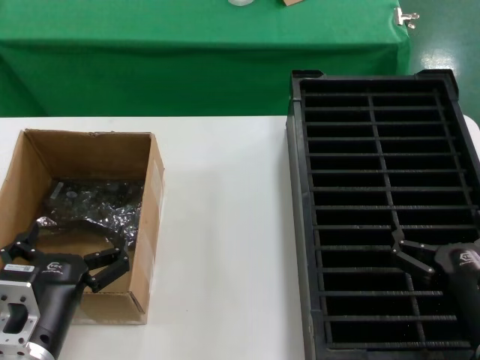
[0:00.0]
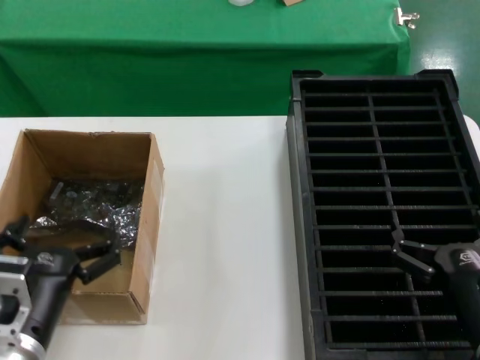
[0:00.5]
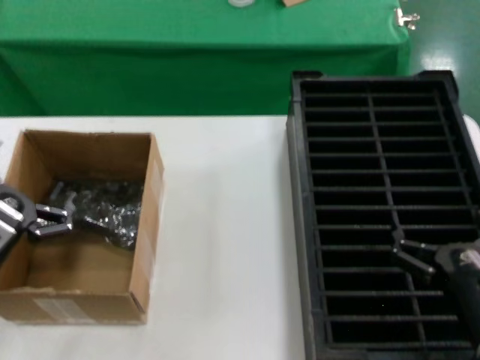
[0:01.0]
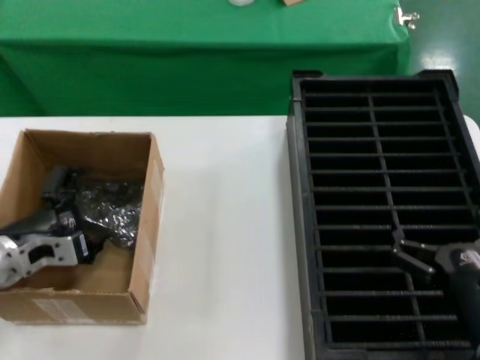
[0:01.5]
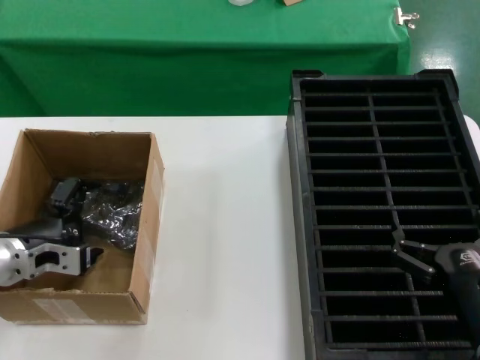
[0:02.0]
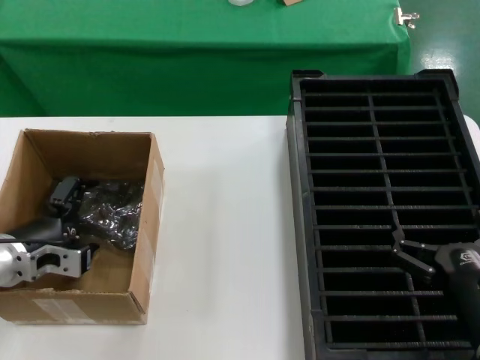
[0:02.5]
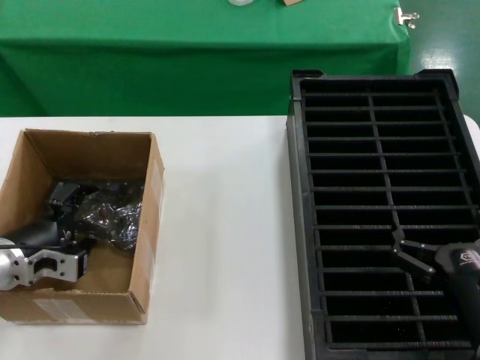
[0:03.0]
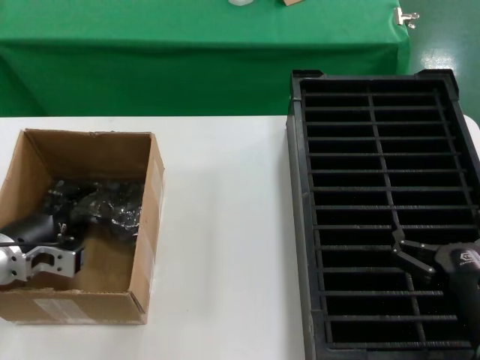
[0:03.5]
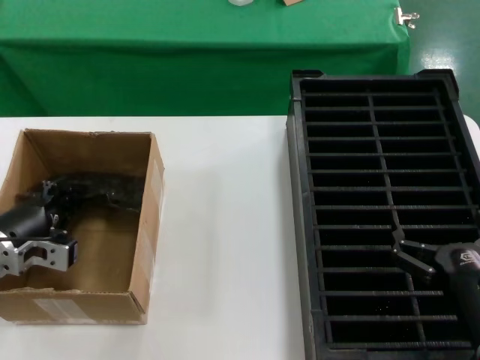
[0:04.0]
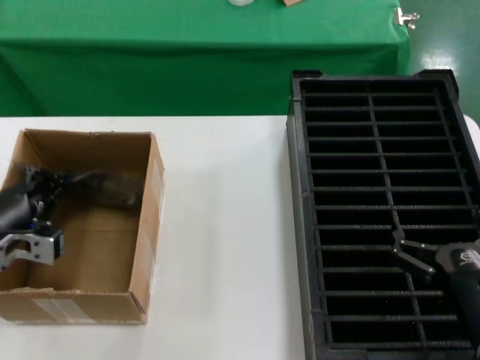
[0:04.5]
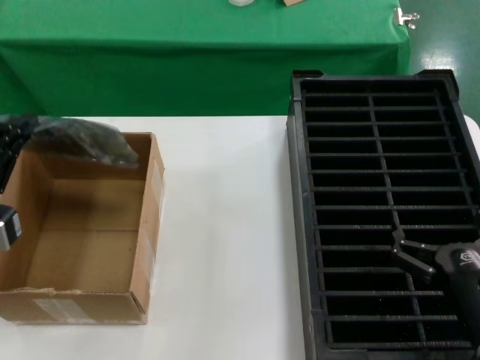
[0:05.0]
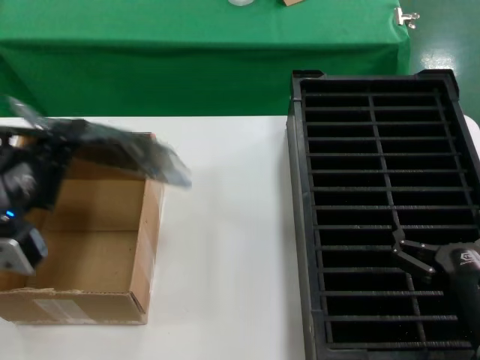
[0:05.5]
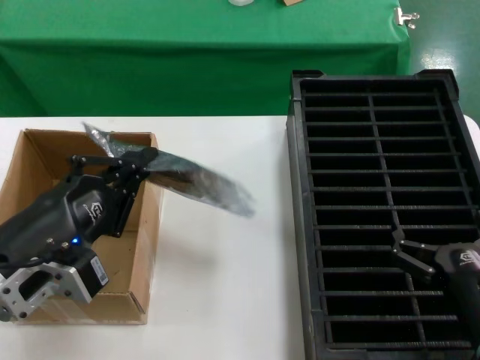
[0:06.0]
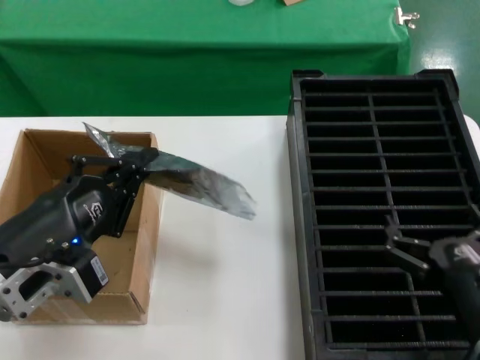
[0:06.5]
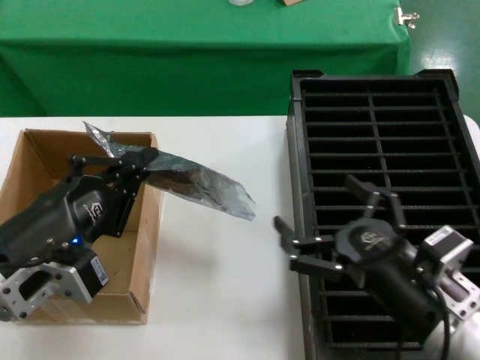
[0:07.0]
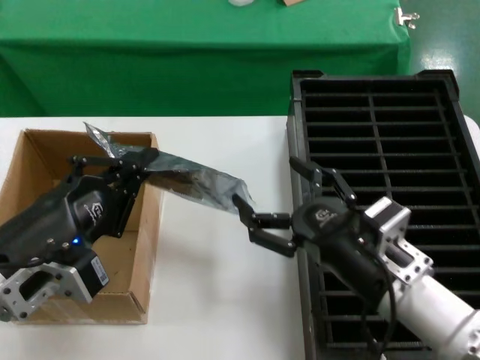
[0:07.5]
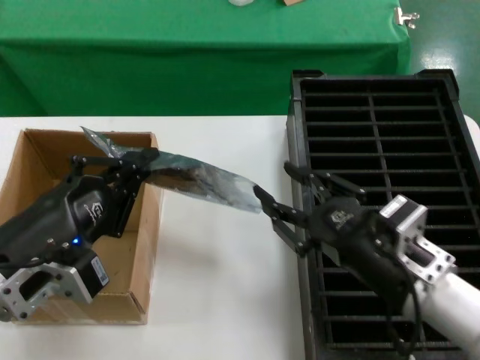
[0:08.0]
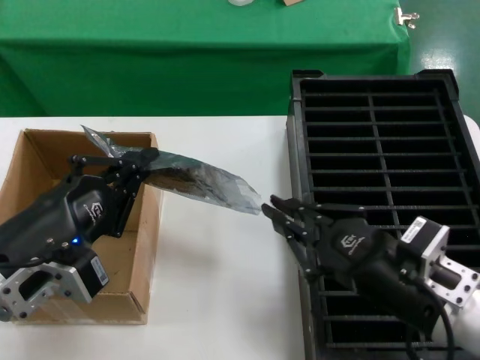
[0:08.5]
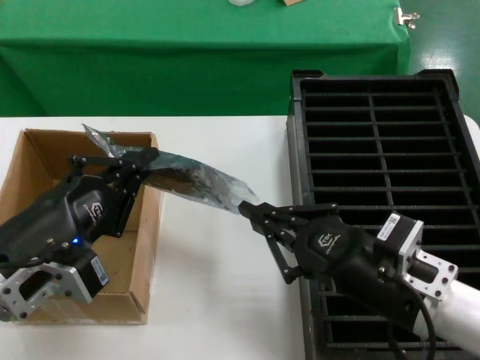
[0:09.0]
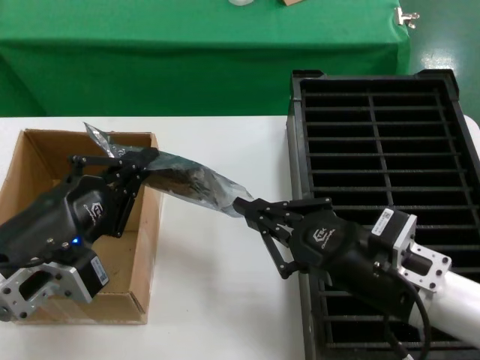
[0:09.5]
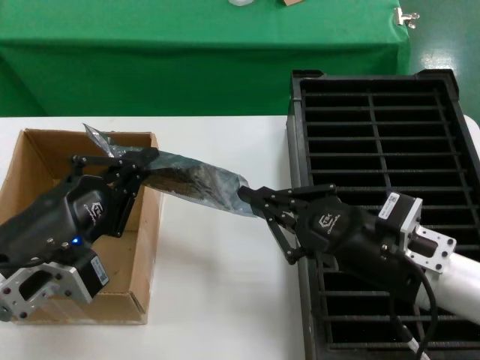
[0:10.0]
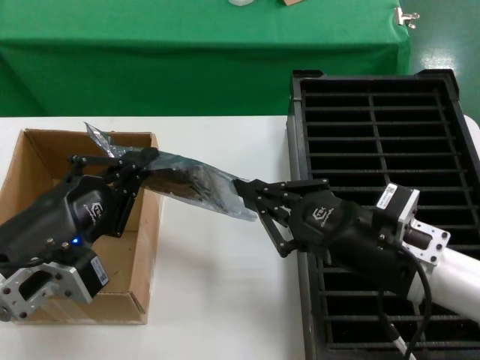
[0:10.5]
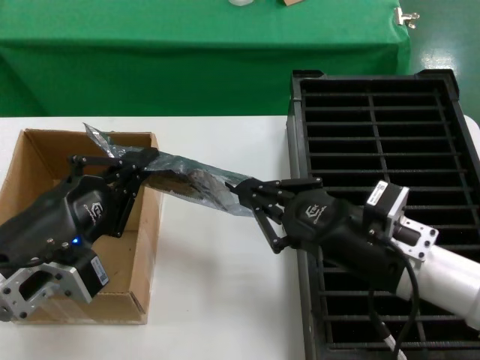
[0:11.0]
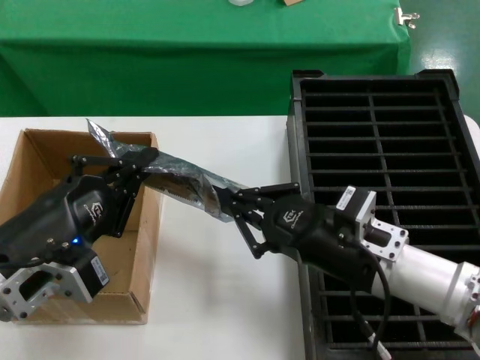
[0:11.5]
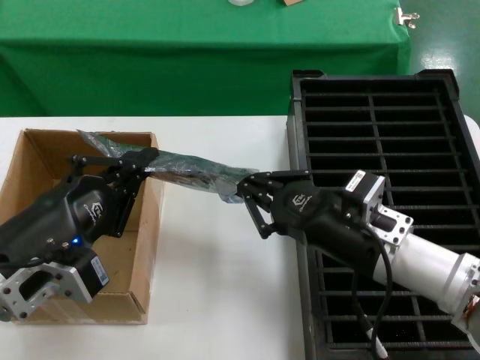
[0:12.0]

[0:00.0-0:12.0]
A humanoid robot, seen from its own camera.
Task of the whole recording: take out graphics card from box remove packaging put into black container.
Step, 0:00.0 to 0:04.0: Grasp the bag.
Step, 0:04.5 to 0:06.0: Lift the bag.
0:00.0 to 0:02.0: The left hand travels forward and to the left by about 20 cm.
0:02.0 to 0:04.0: The hands move only a little.
0:04.0 to 0:06.0: The left hand goes roughly 20 cm backward, to the right and upward.
0:06.0 to 0:08.0: The right hand goes about 10 cm upward and to the left.
0:08.0 to 0:10.0: The hands make only small movements.
0:10.0 to 0:12.0: The right hand moves roughly 5 cm.

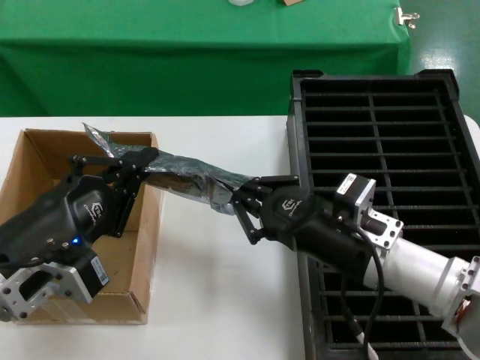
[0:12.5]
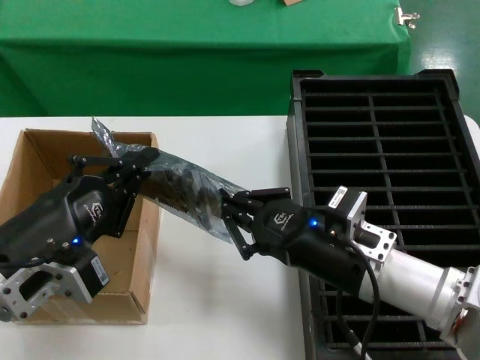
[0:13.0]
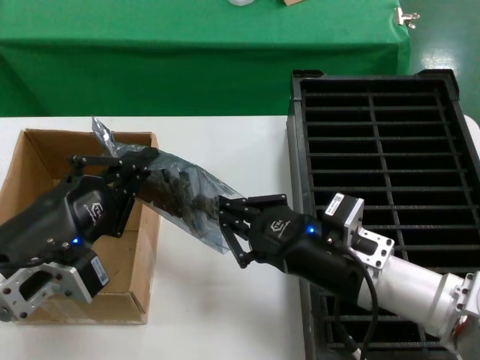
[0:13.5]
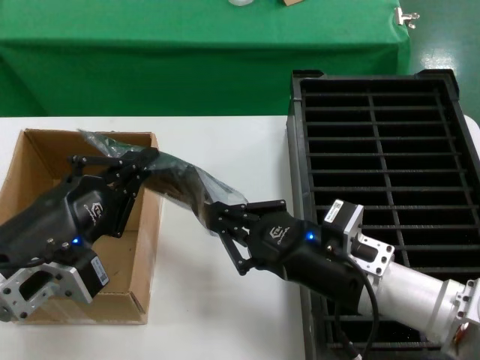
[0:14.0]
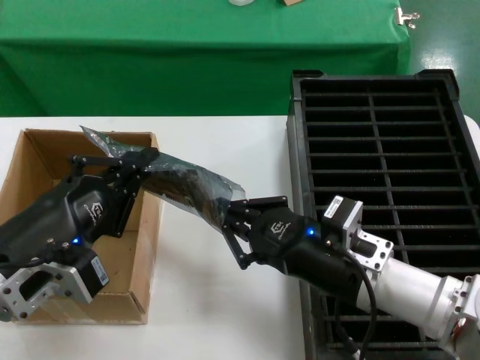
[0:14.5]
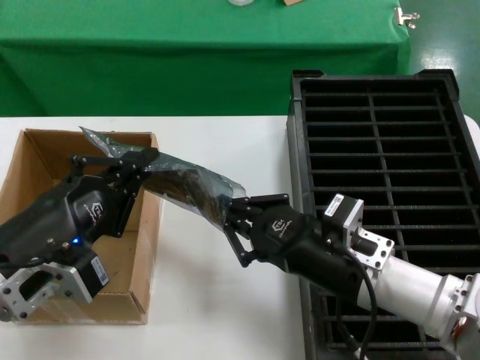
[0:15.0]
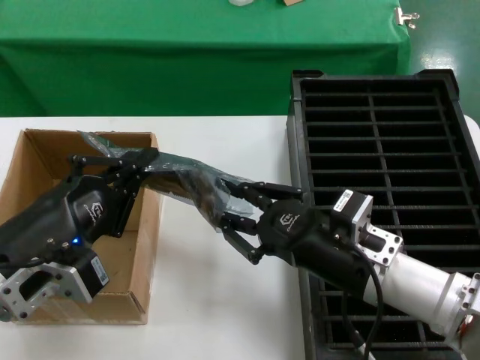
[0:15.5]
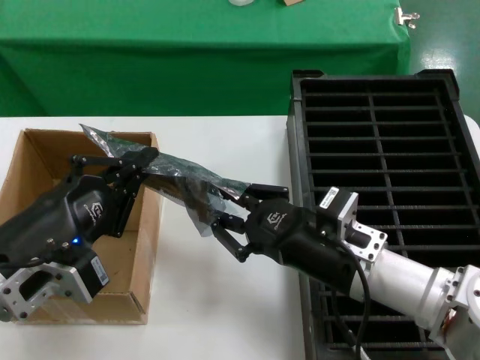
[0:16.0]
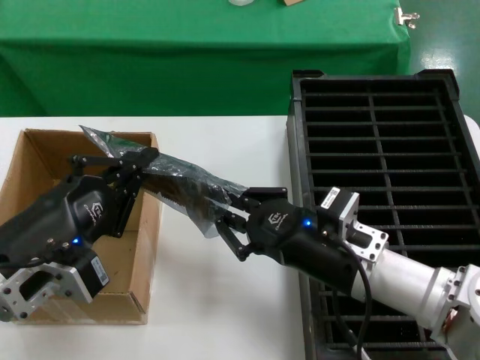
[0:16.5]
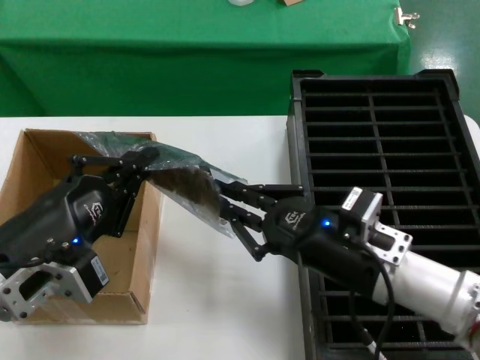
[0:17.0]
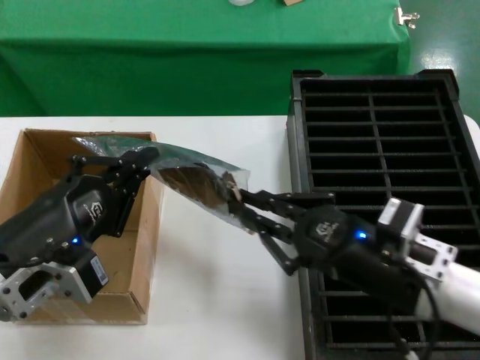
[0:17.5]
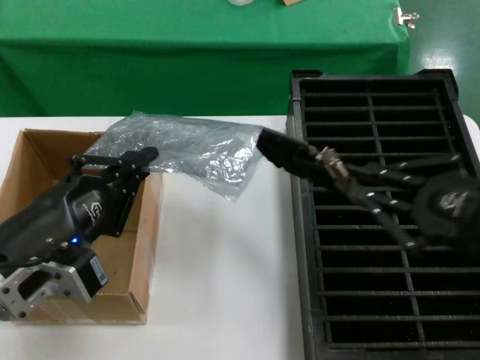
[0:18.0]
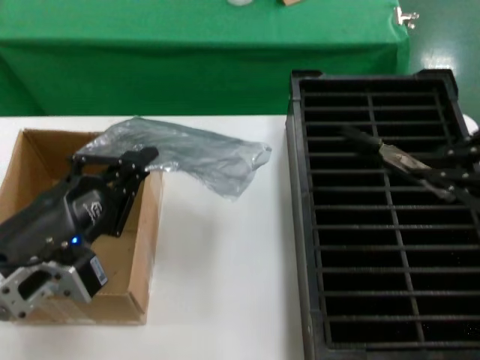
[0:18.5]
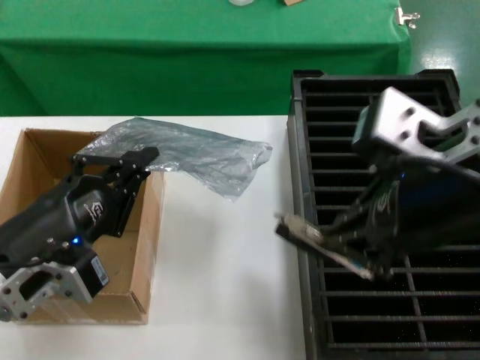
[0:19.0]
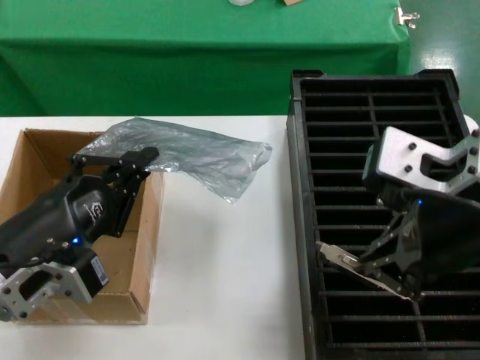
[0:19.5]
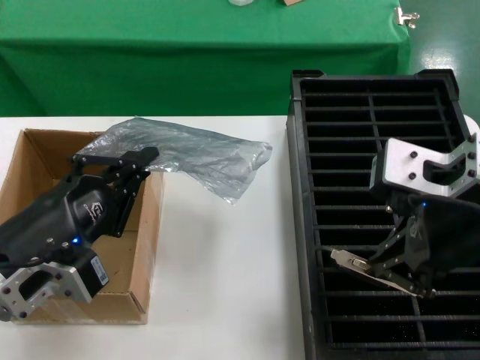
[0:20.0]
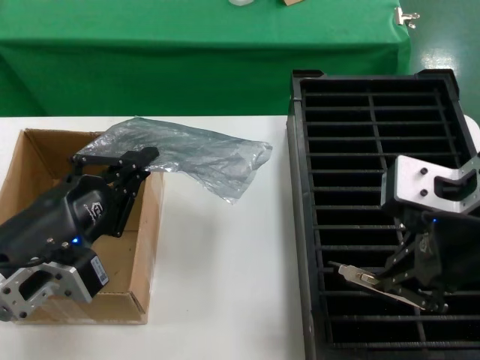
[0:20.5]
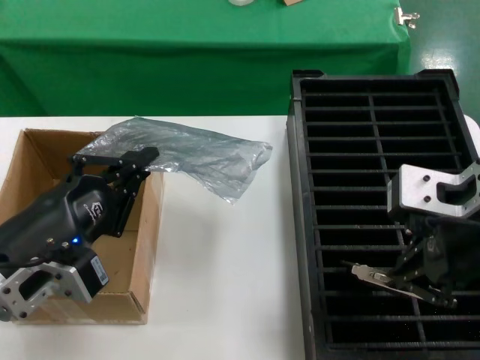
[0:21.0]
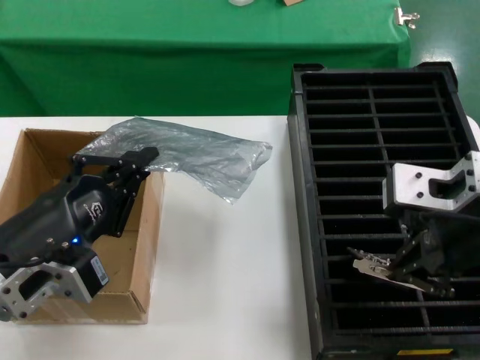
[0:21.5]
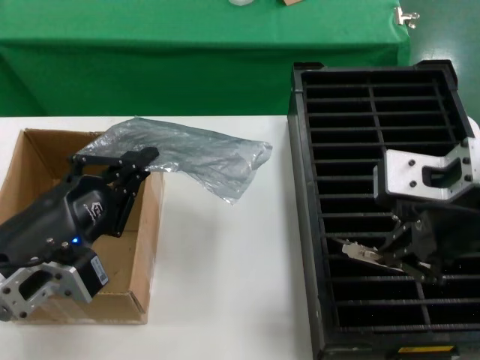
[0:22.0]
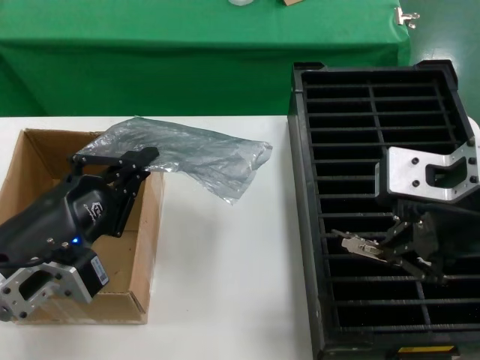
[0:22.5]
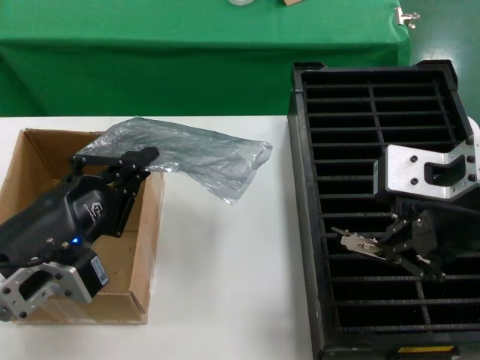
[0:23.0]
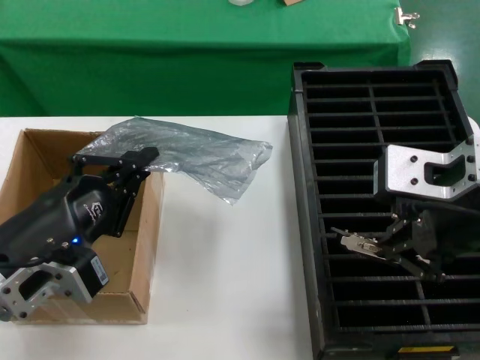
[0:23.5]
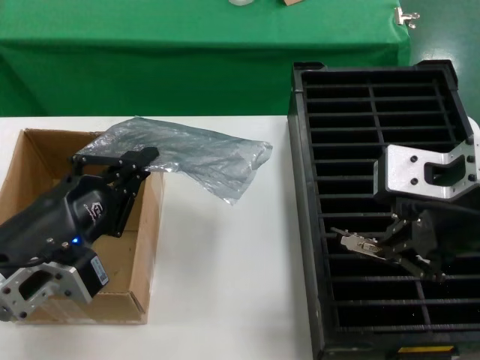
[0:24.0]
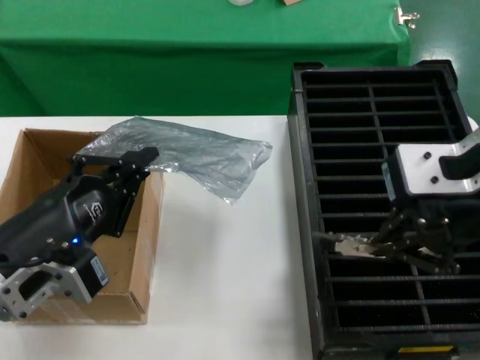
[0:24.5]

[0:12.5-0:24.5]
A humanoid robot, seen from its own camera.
Task of the whole recording: take out graphics card from box remove packaging put into black container.
Step, 0:12.5 to 0:18.0: Take out the hard disk of the bag.
0:12.5 to 0:16.5: There are only small adjustments of the hands.
0:16.5 to 0:18.5: The right hand is displaced upward, to the right and backward by approximately 30 cm.
0:18.5 to 0:20.5: The right hand heads to the left, covering roughly 10 cm.
0:20.5 to 0:24.5: The hands move only a little.

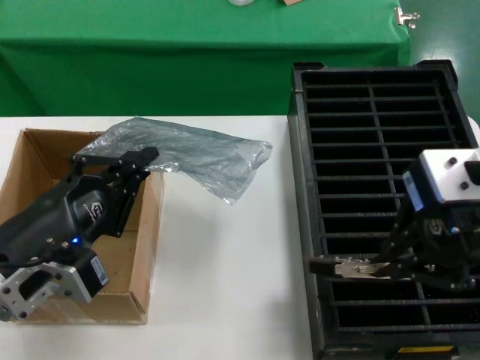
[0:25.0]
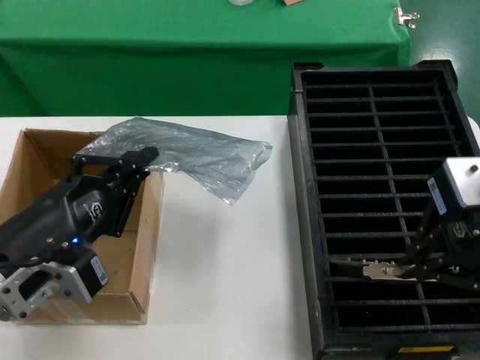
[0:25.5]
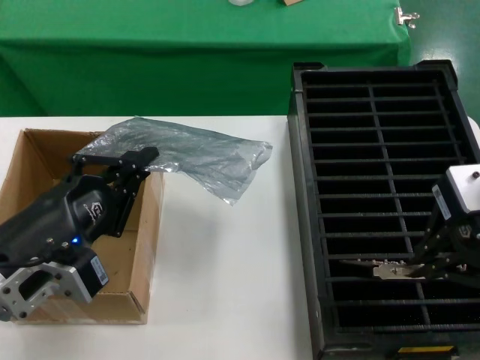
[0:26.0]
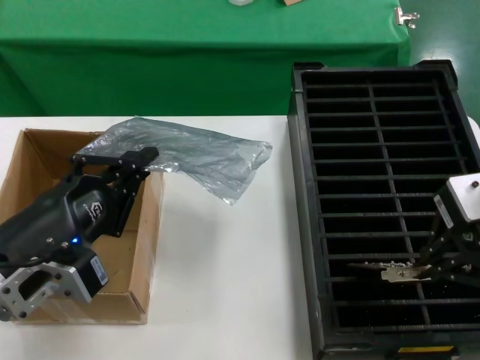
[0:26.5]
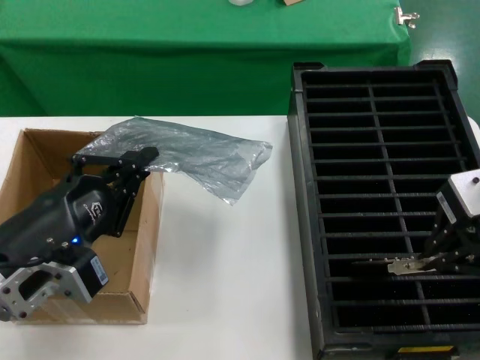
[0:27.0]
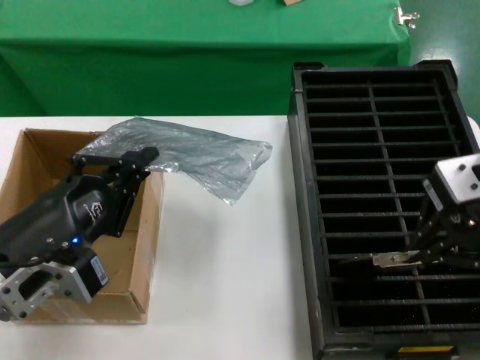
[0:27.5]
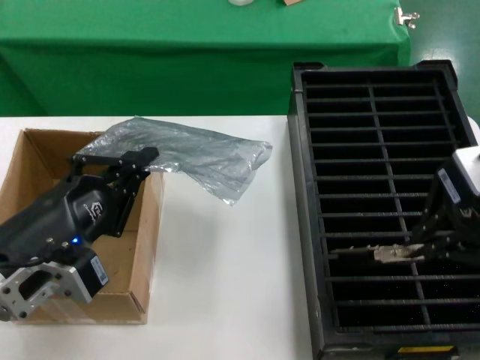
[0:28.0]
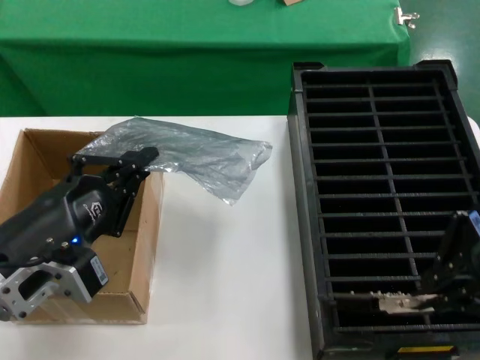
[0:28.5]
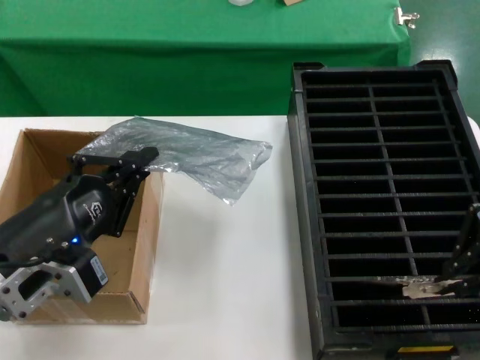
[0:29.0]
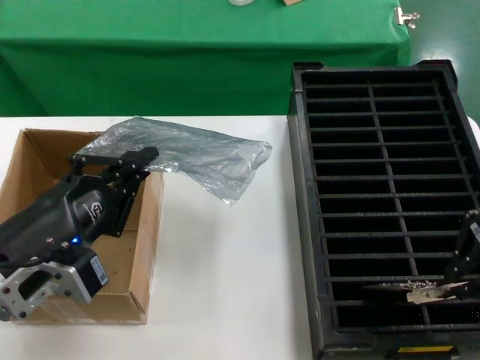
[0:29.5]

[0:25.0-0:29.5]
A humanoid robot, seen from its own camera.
Task of the whole recording: take out graphics card from box remove packaging put into black container.
0:25.0 to 0:27.0: The right hand is displaced forward by roughly 5 cm.
0:27.0 to 0:29.5: The hands stay close to where they were, moving slightly.
